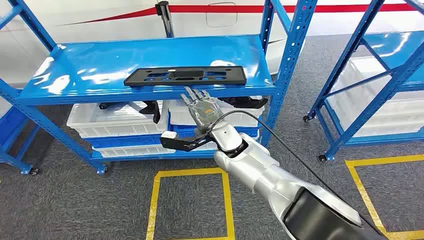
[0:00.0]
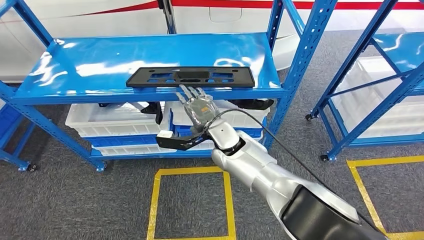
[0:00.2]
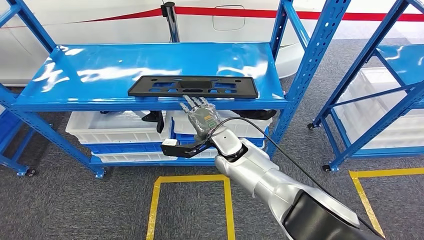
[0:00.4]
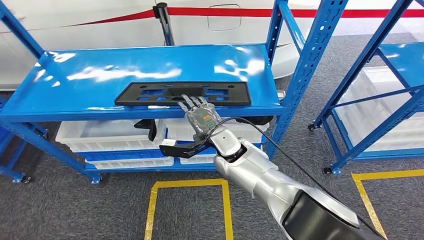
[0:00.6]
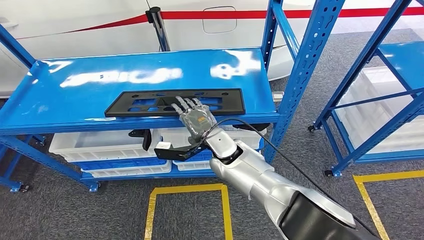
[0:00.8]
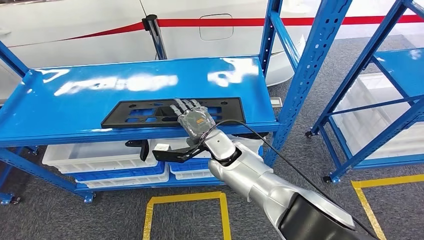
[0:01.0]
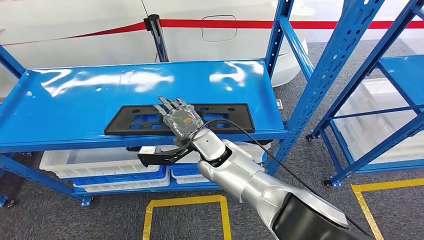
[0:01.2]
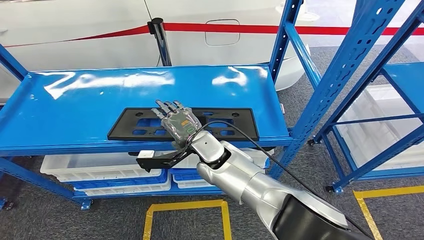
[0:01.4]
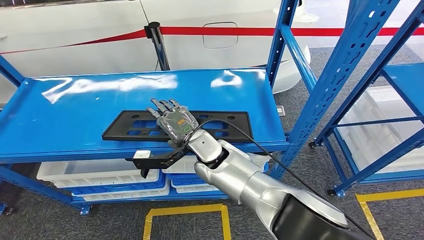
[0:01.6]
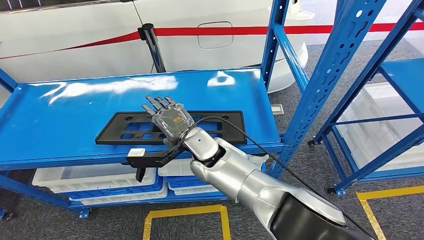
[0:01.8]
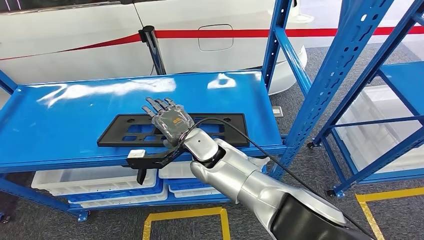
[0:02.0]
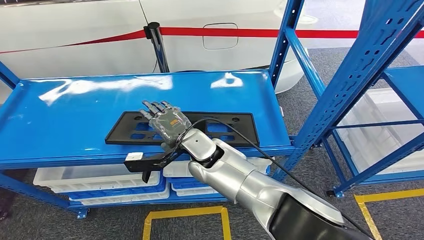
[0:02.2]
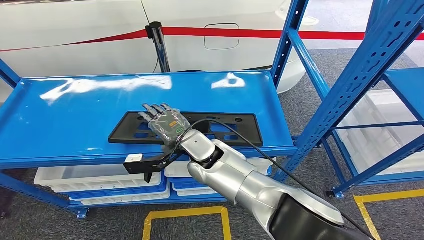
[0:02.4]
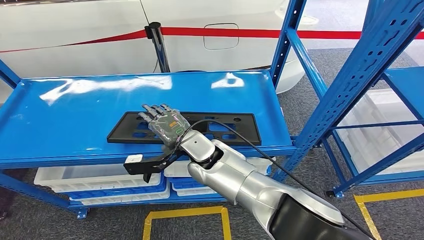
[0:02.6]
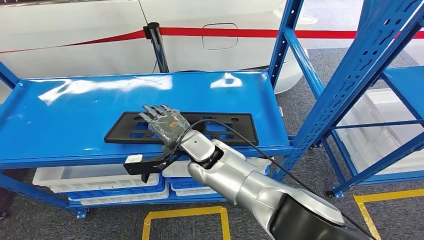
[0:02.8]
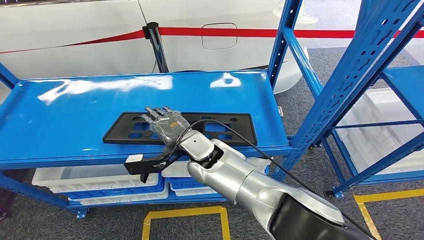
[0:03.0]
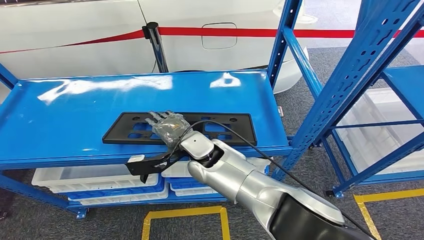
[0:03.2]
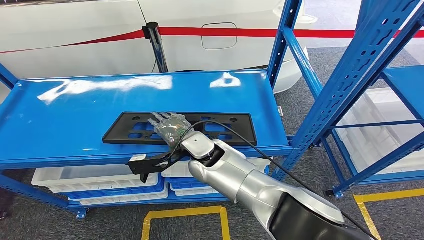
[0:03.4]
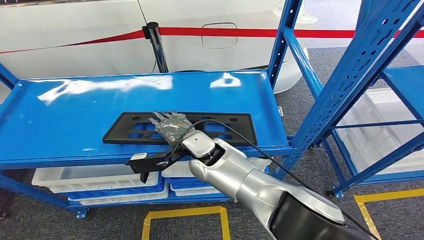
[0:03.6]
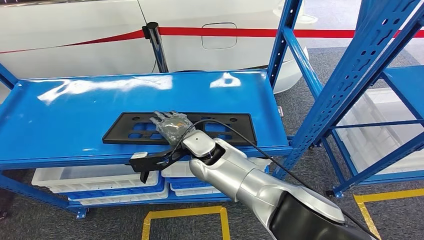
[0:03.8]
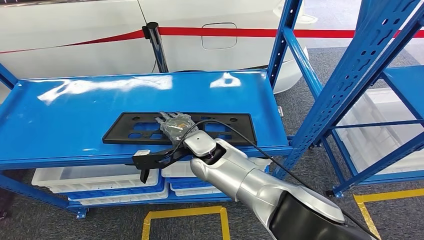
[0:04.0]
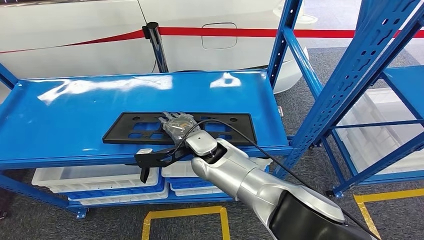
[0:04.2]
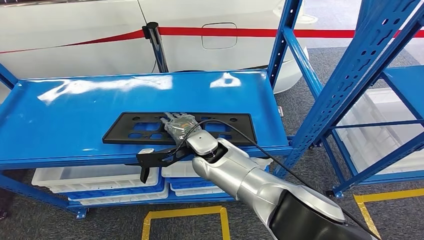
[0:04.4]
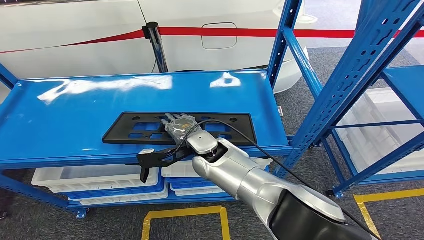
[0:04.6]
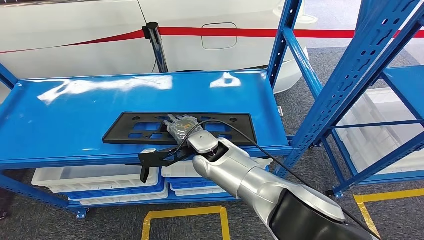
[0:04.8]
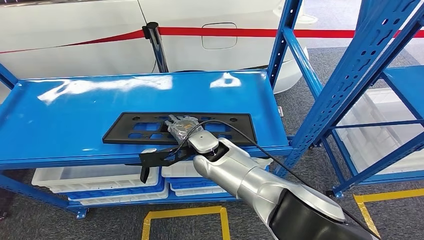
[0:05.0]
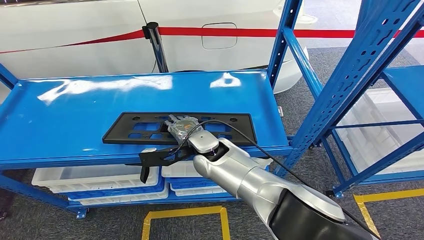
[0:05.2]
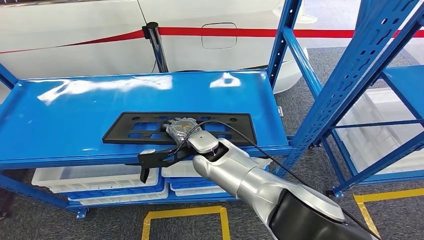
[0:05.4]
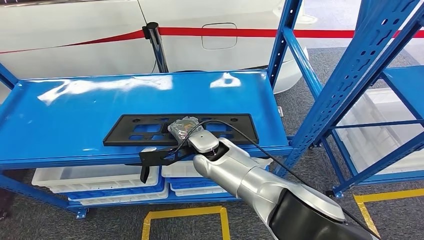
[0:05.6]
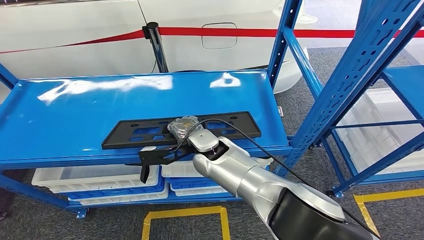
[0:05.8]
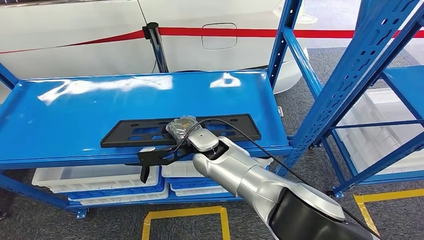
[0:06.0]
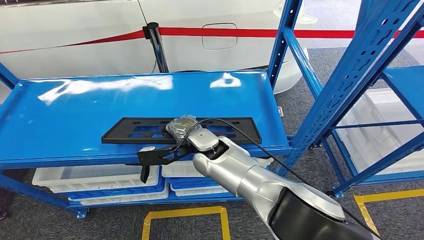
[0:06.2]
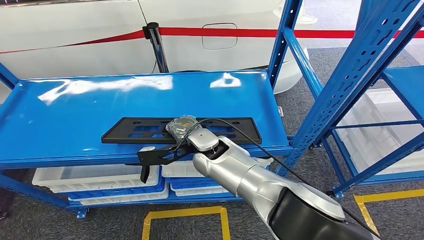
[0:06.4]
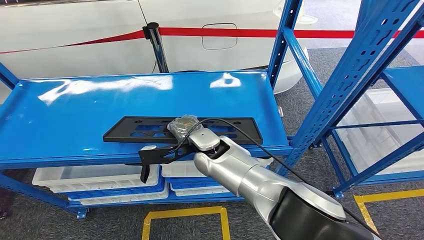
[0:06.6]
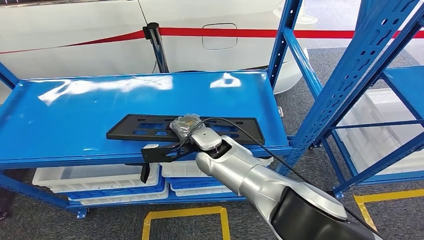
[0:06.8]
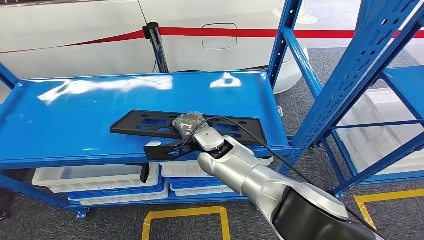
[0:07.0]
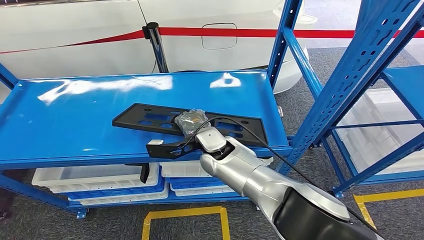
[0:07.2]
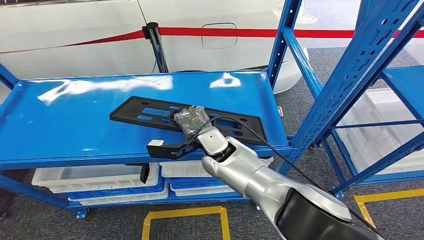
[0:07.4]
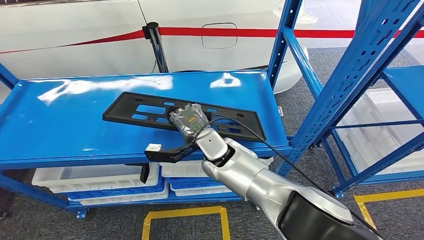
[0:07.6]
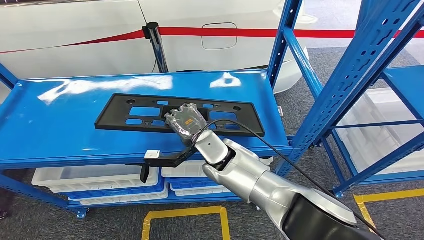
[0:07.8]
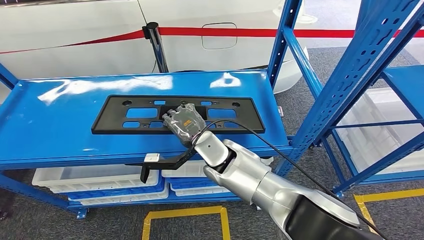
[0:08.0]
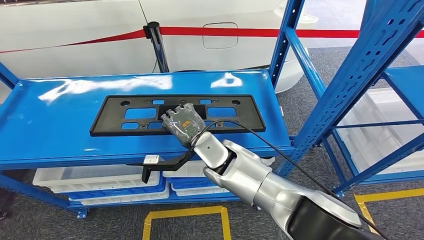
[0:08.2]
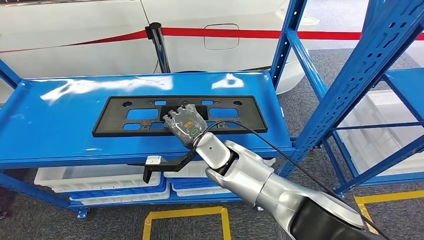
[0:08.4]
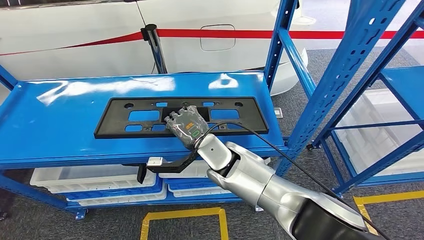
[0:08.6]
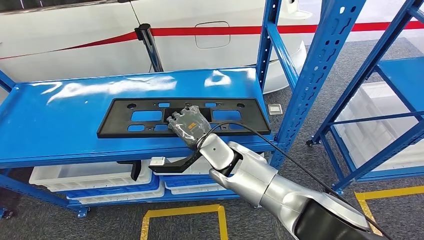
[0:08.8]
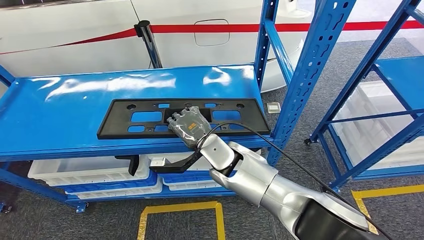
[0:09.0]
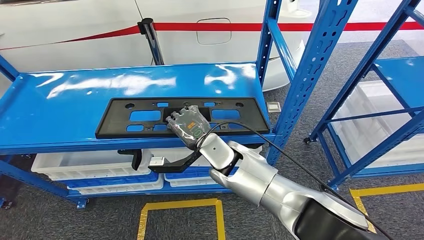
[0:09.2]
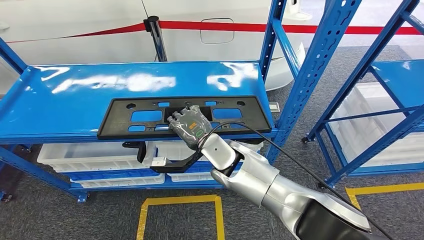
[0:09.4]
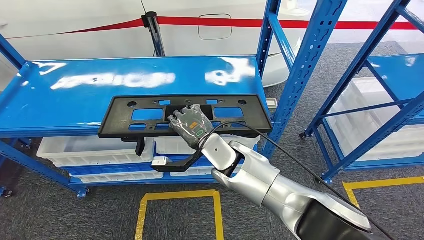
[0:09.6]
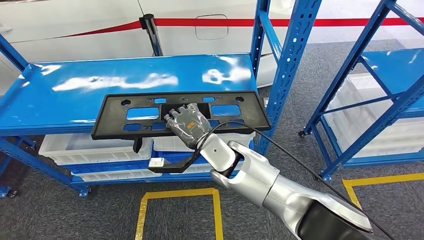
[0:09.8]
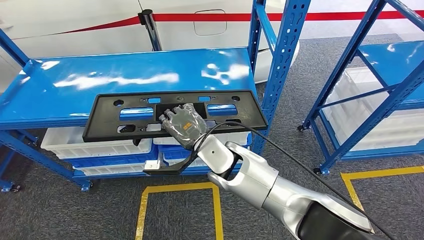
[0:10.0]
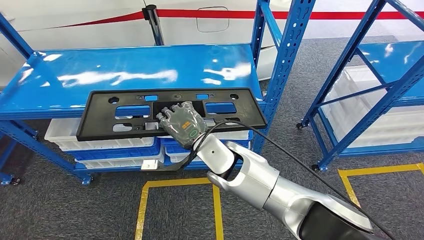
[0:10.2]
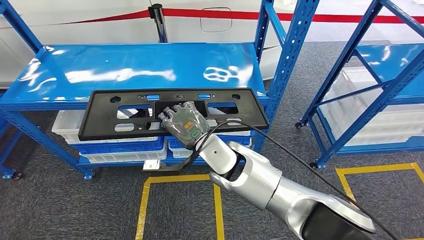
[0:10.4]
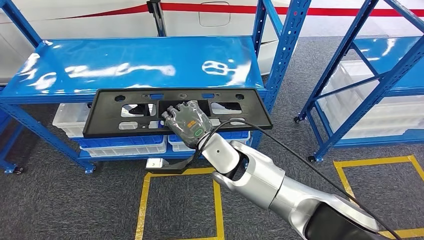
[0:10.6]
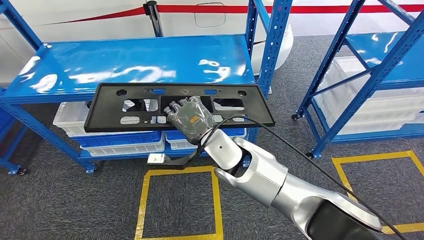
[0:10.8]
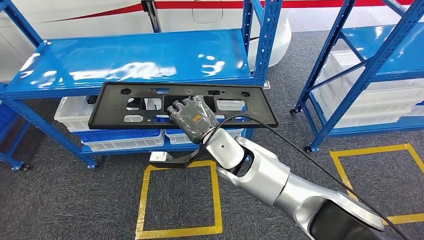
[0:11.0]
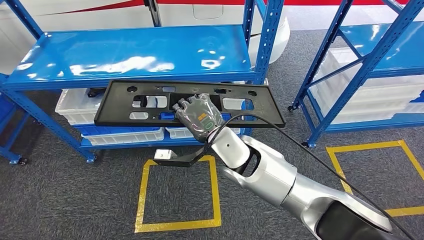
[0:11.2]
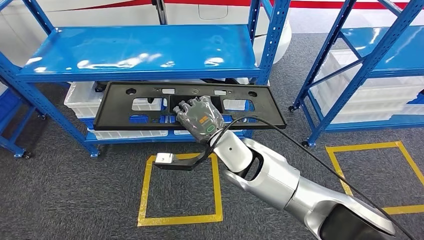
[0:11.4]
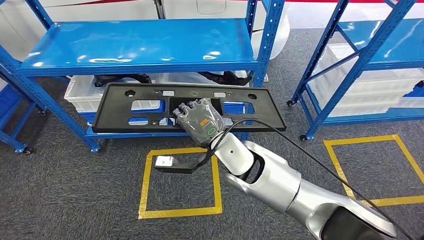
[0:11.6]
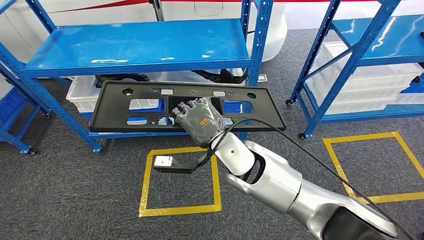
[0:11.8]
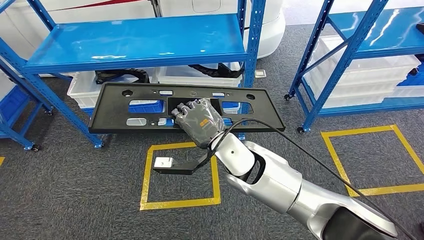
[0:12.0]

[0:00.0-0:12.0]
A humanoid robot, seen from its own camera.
Step, 0:00.0 to 0:09.4: Pick up the large material from the shelf.
0:03.0 to 0:06.0: The hands make only small movements.

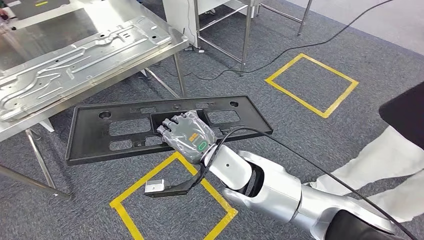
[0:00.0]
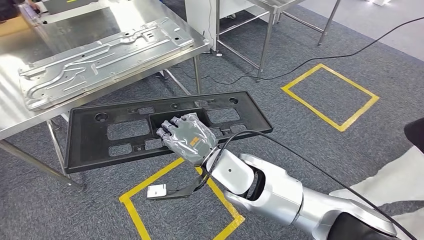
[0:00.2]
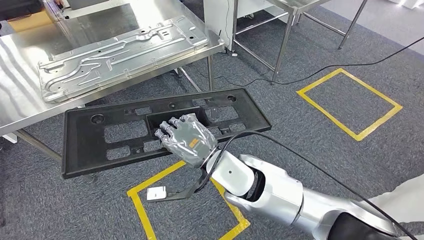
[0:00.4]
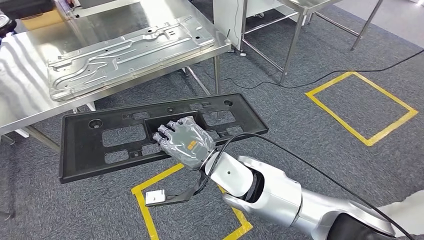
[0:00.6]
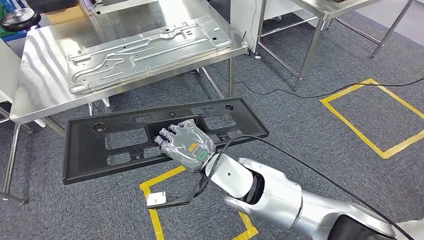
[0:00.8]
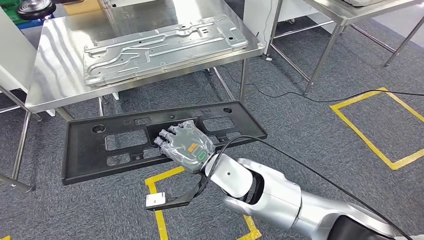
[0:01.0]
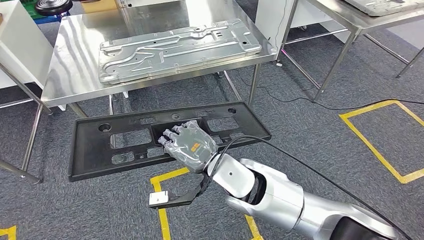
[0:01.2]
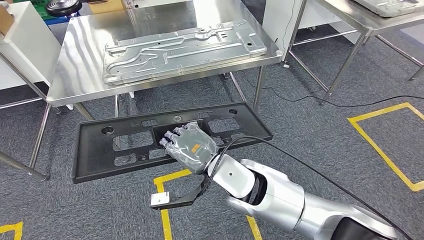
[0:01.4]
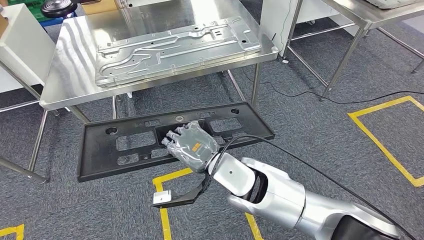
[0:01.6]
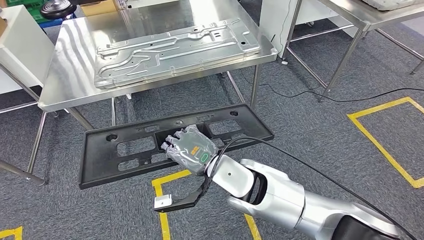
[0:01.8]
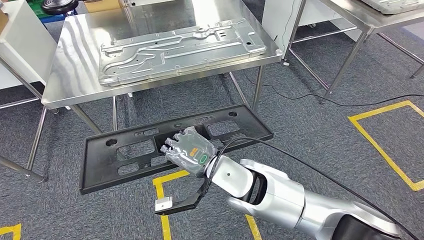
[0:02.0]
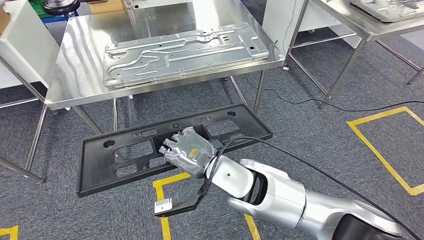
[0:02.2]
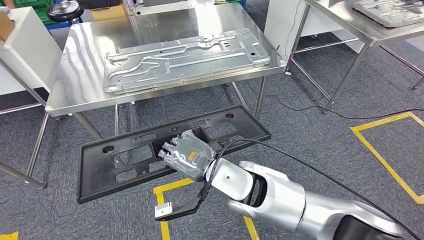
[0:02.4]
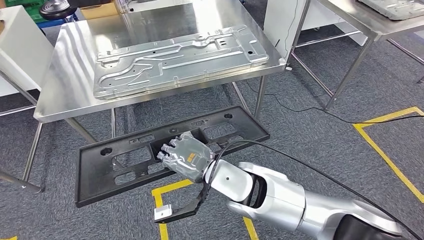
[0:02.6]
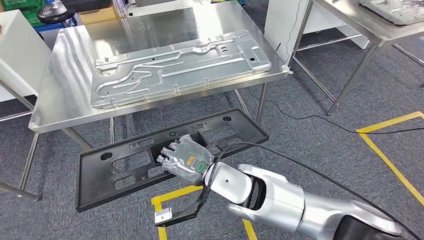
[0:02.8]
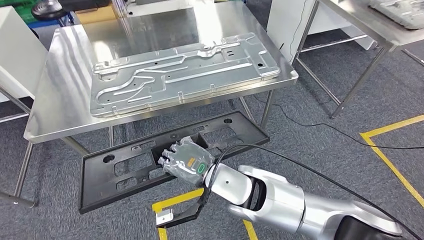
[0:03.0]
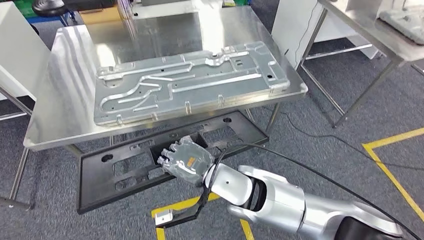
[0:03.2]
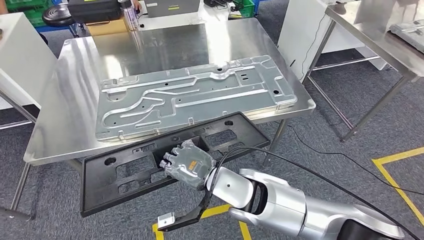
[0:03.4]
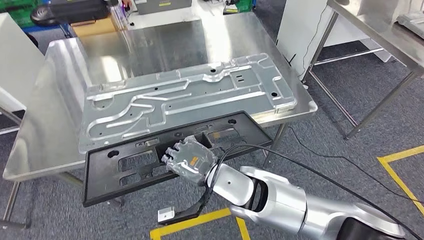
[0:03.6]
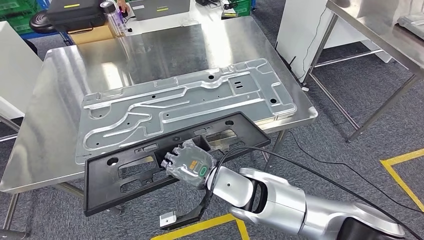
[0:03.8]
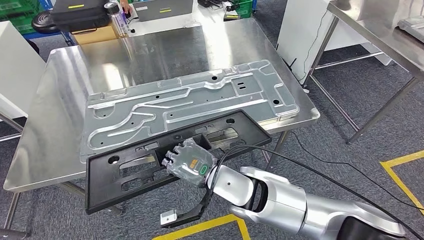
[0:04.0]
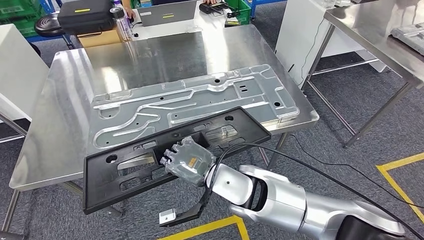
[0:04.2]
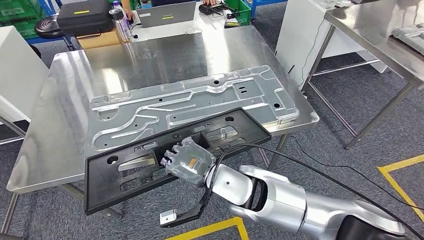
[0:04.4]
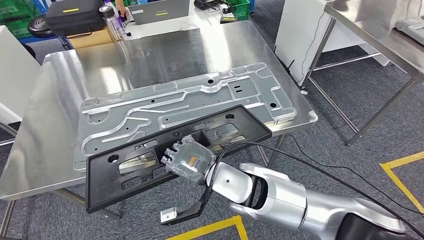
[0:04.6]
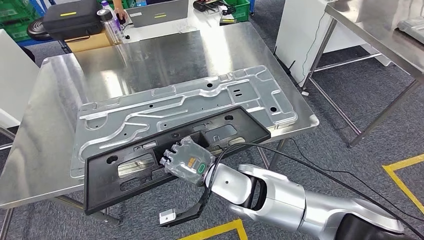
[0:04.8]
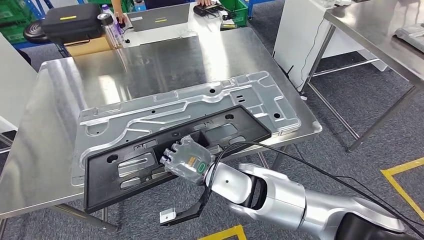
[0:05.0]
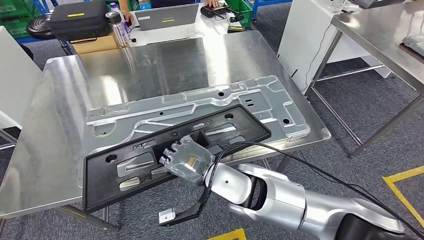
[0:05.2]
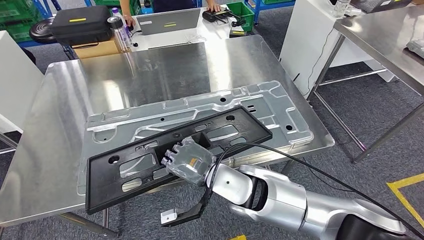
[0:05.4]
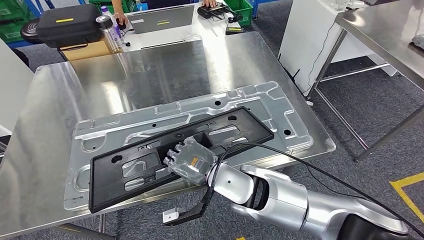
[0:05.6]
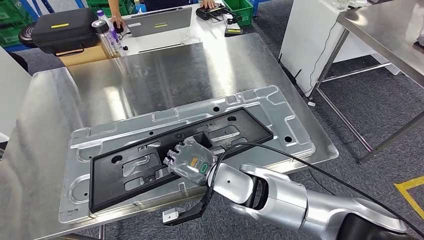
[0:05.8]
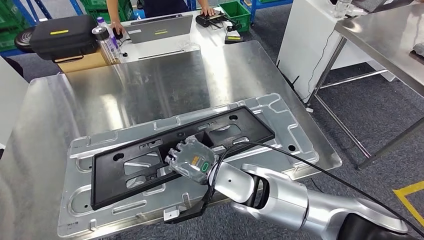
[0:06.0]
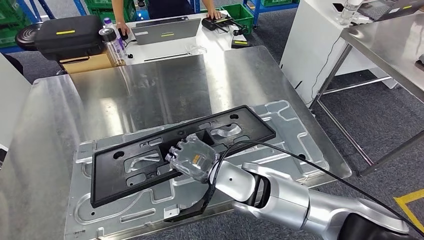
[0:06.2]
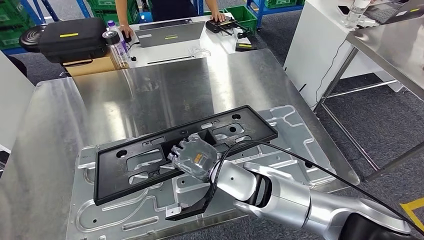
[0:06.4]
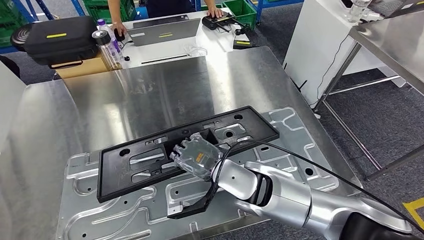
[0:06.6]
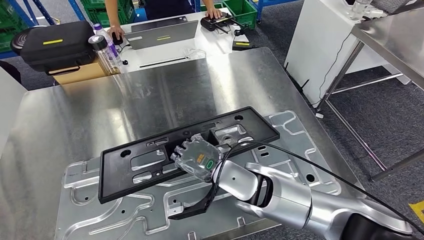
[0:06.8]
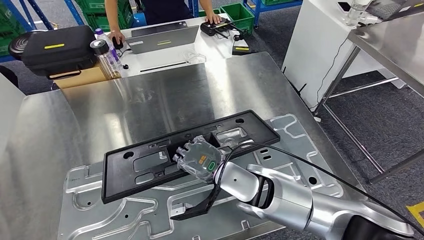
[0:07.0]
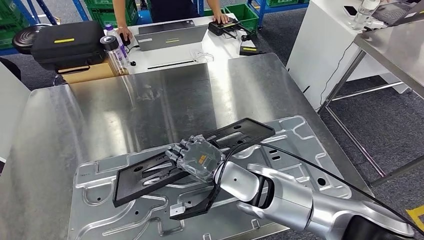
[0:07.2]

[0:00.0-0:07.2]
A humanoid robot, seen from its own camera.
Step, 0:00.0 to 0:03.6: Move the large material to the workbench.
